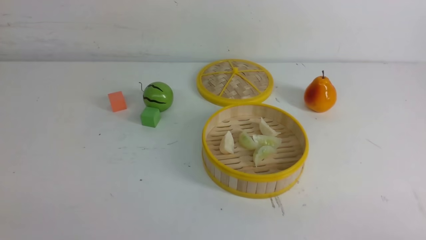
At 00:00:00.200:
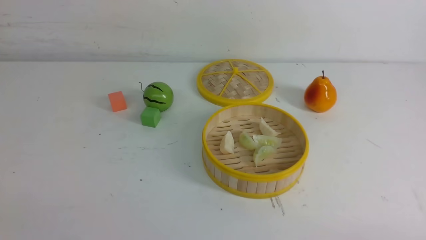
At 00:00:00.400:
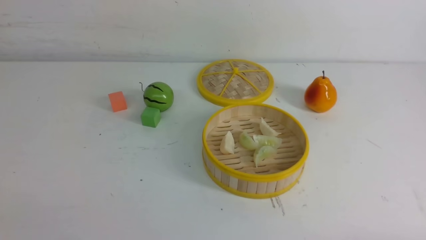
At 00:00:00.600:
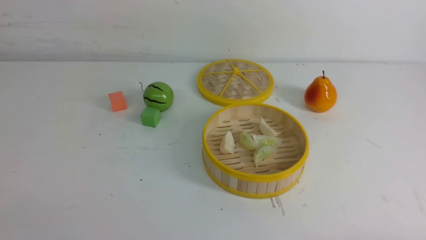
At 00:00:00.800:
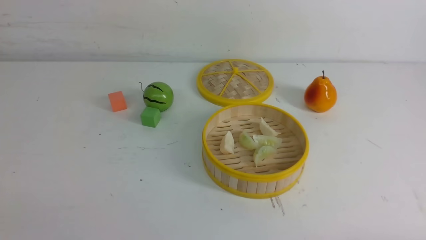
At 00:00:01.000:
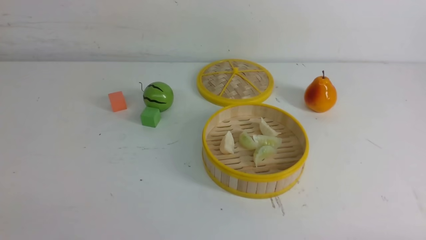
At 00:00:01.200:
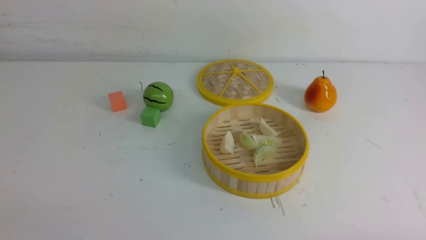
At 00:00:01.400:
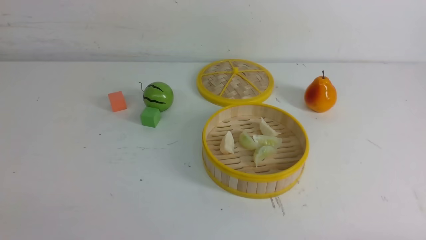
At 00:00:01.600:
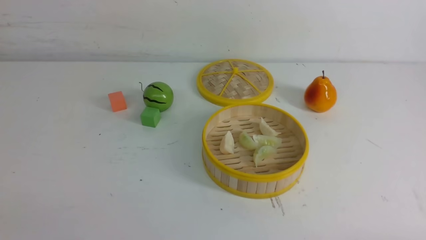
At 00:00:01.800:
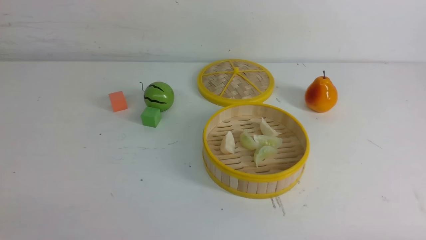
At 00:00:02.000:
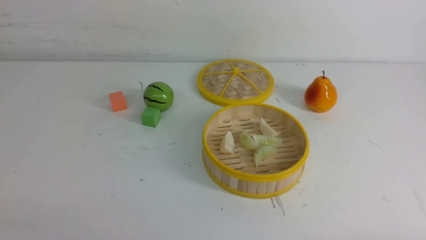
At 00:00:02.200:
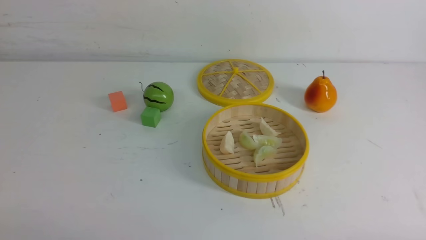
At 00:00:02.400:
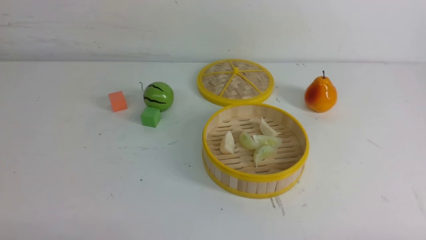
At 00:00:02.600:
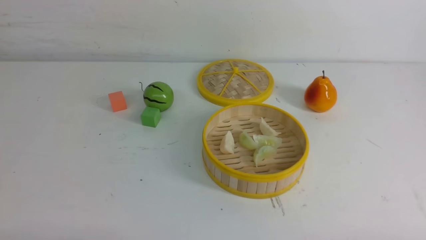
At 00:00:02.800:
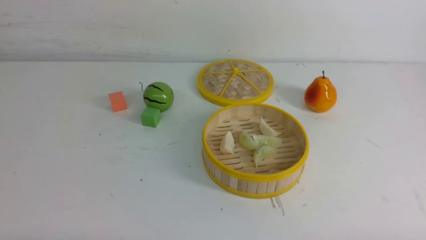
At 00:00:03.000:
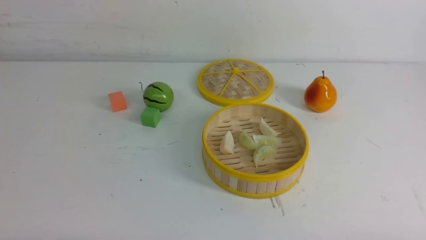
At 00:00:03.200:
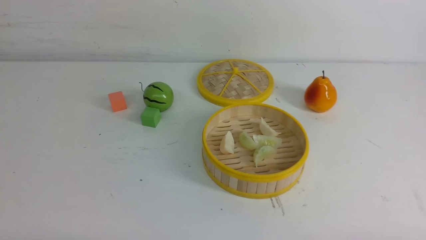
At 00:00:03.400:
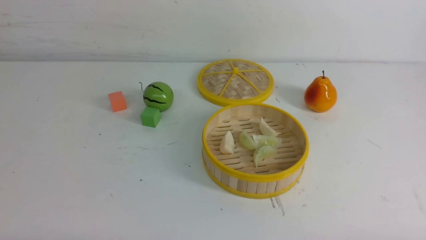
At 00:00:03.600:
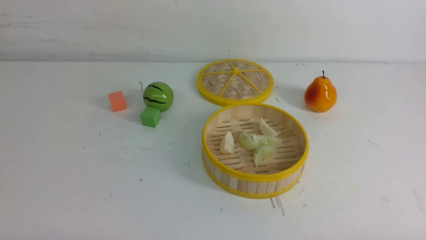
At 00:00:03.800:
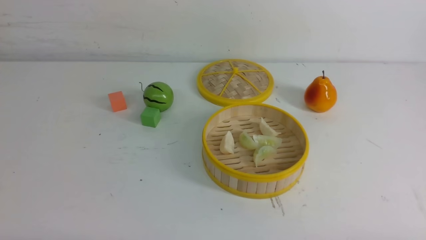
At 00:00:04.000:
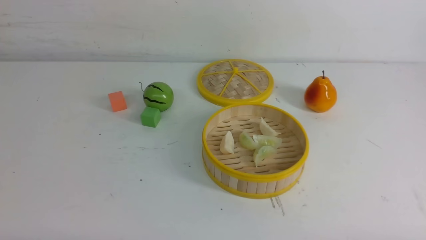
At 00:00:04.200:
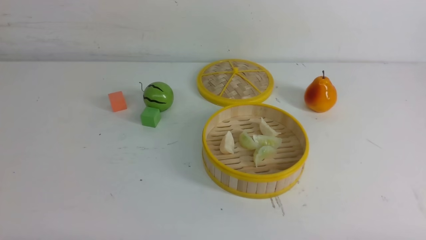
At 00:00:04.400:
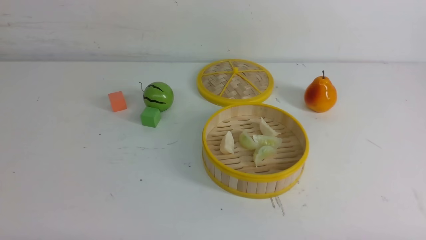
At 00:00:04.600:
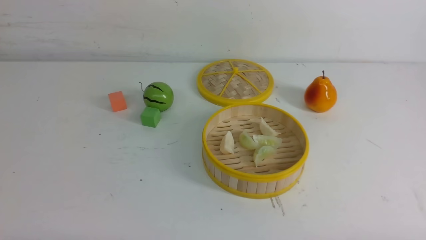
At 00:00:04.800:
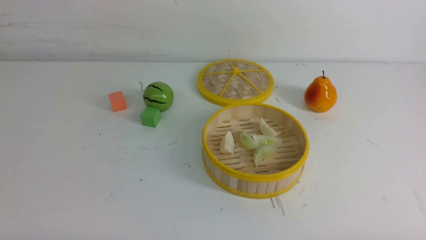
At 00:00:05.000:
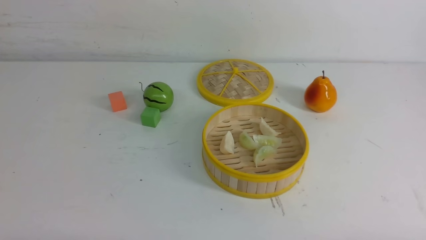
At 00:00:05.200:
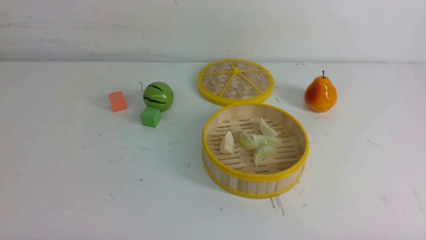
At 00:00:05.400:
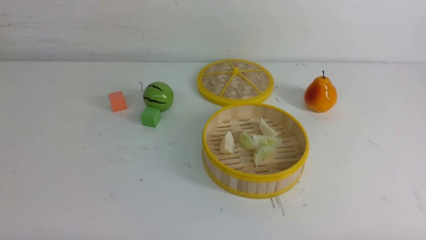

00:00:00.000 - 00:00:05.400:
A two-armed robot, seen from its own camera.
Task of the whole recording: put the dumplings into the steamer on the white table.
00:00:02.800 - 00:00:05.400: Both grippers stay about where they are.
